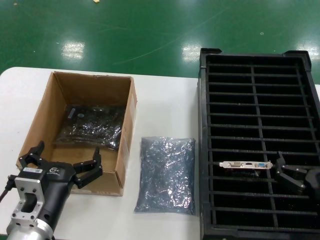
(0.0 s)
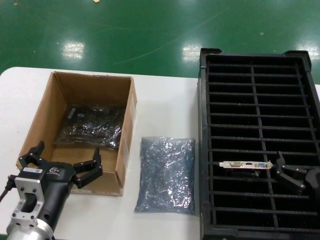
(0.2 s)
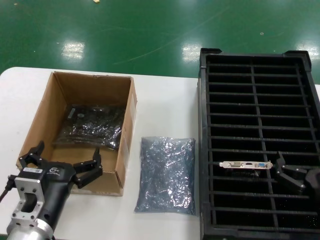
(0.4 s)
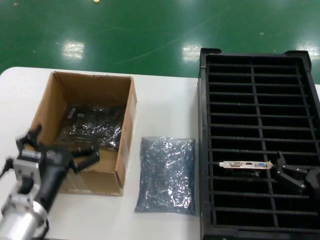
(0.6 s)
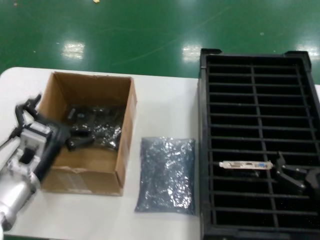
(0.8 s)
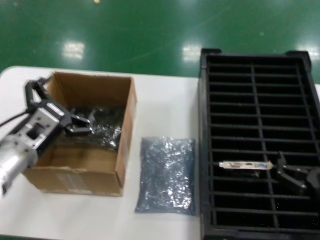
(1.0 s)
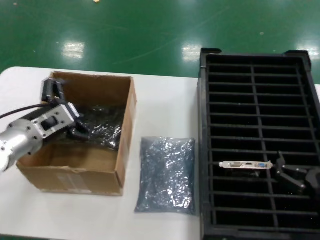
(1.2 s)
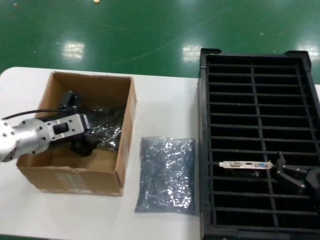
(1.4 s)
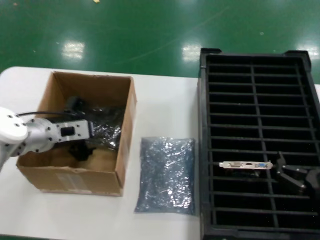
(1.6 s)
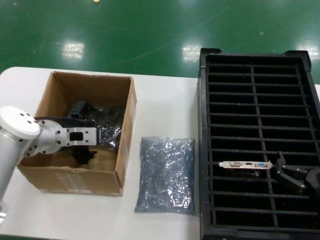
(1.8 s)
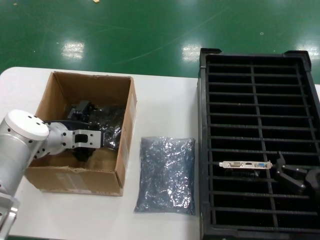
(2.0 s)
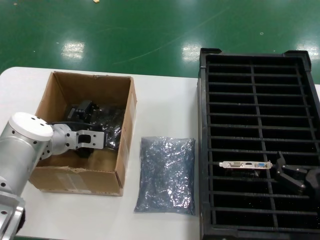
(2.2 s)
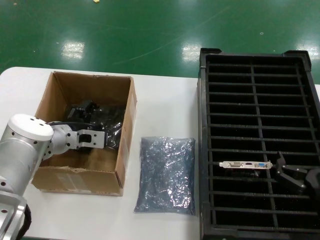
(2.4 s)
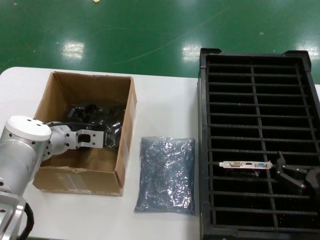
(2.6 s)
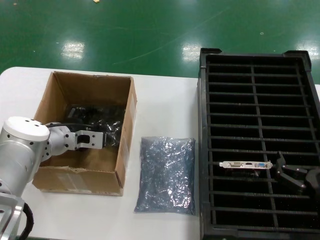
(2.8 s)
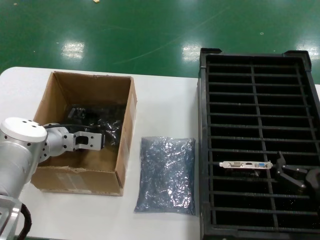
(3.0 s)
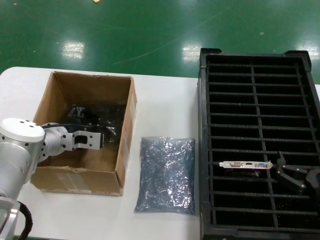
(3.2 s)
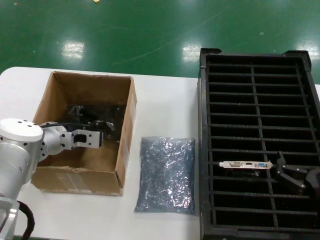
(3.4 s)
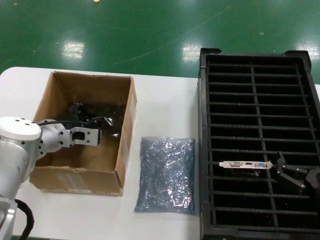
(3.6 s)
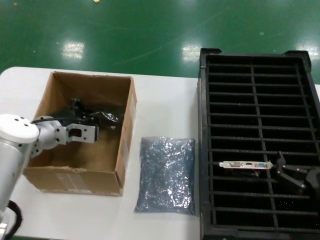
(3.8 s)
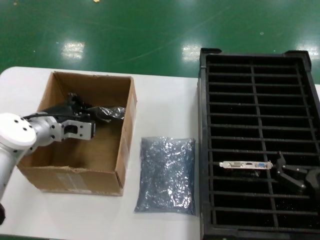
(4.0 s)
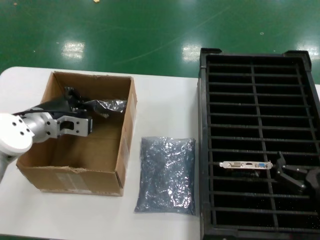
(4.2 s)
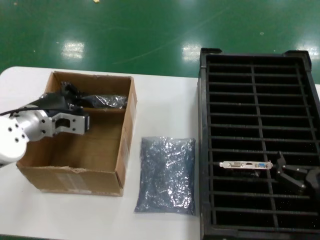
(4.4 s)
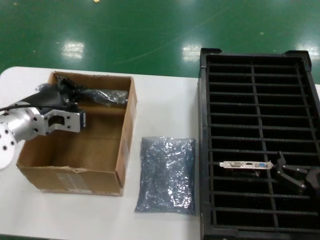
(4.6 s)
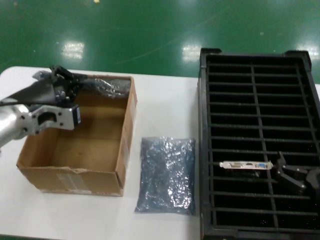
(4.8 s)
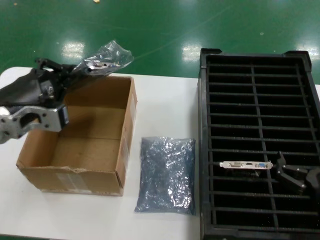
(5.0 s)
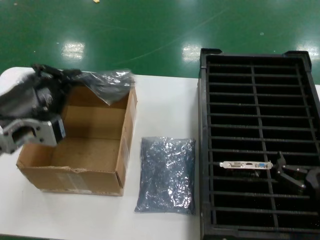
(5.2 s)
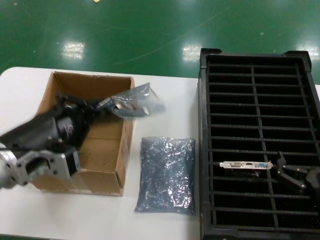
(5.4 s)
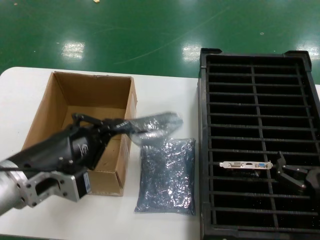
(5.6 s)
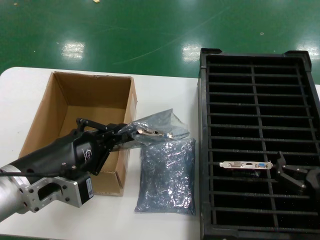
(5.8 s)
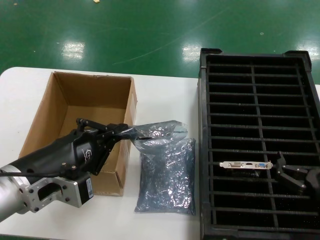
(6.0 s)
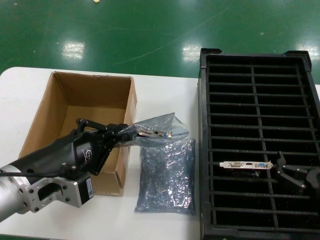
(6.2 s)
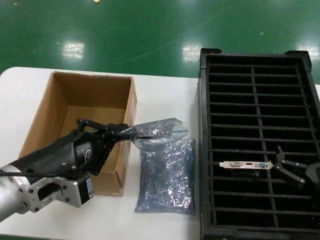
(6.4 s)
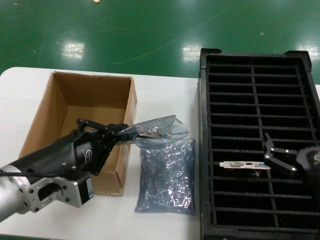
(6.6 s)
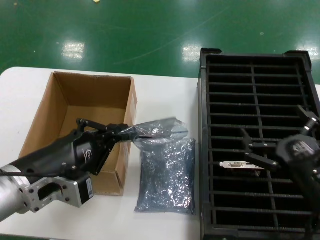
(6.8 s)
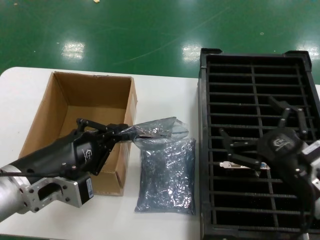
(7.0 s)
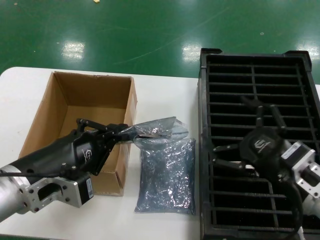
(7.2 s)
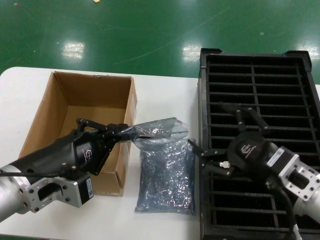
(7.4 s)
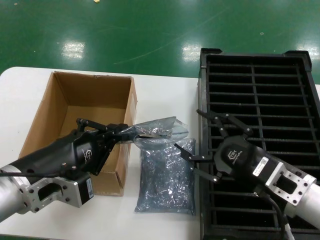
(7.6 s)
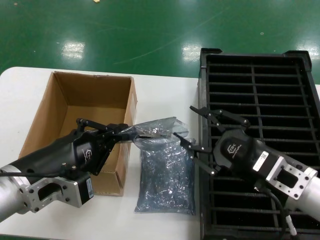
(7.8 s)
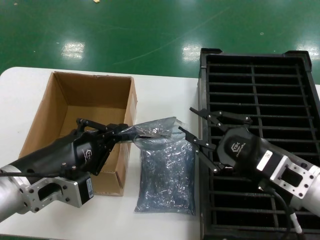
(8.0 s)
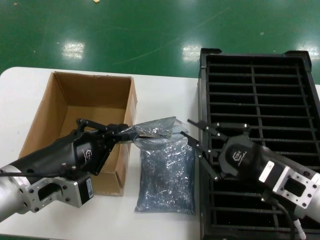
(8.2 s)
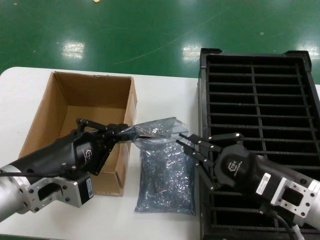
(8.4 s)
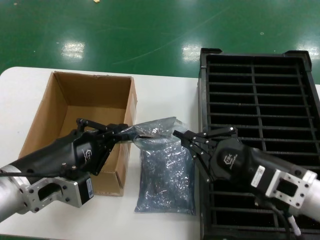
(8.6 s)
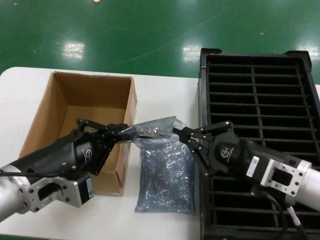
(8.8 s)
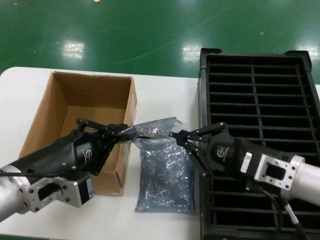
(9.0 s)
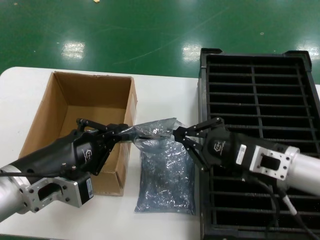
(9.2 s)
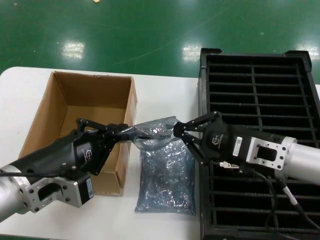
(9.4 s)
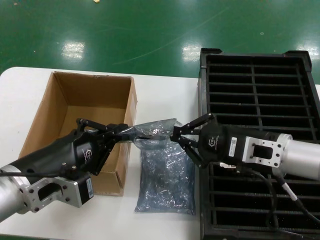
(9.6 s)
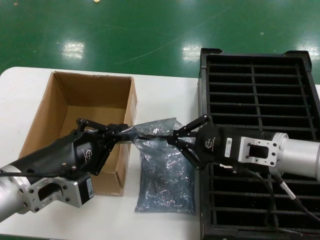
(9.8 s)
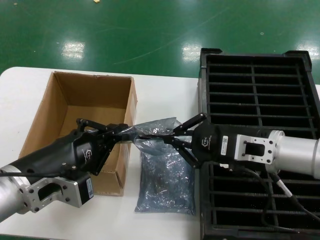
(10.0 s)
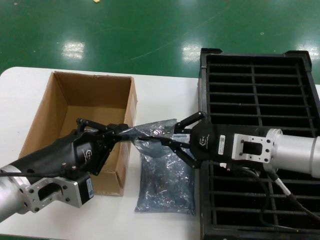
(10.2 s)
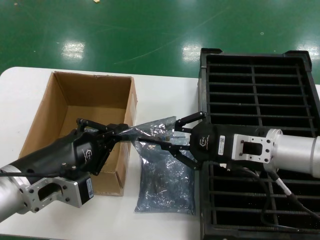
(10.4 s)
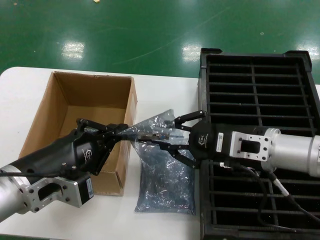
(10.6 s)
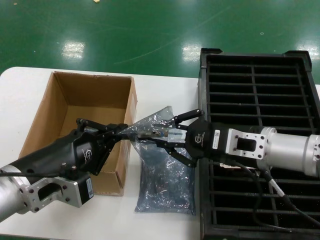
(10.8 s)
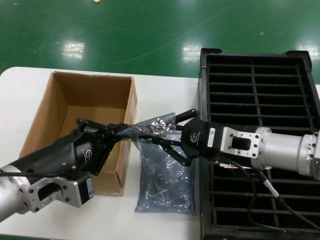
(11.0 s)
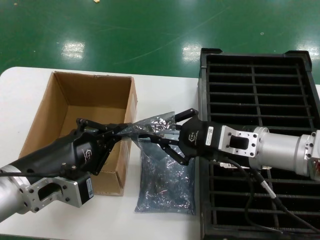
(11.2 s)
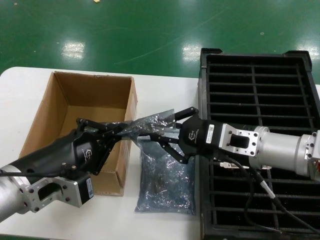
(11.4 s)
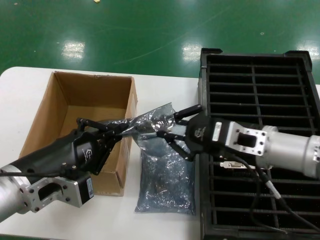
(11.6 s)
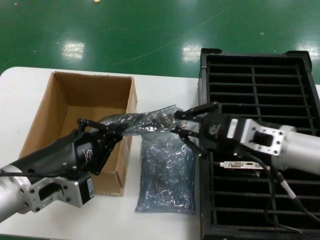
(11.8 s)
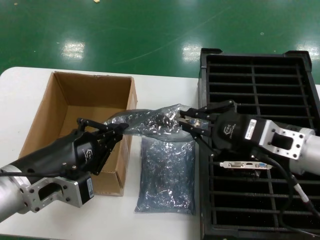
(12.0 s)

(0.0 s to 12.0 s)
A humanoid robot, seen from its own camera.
Task of the whole recording: take out graphics card from box remove packaging put into black container.
Step, 0.0 s - 3.8 s: Grasp the bag.
Step, 4.0 s - 6.0 s: Lift the bag.
0.0 s - 1.6 s: The left hand is displaced forward and upward by approximately 25 cm.
1.6 s - 3.0 s: The hands stay close to where they were, moving slightly.
3.0 s - 4.4 s: The left hand goes some 5 cm upward.
4.4 s - 6.0 s: The left hand shifts approximately 20 cm backward.
6.0 s - 7.6 s: The right hand heads upward and forward, covering about 10 cm.
7.6 s - 9.0 s: The hands move only a little.
9.0 s - 10.4 s: The right hand moves about 5 cm.
10.4 s - 12.0 s: There are only small adjustments of the hands.

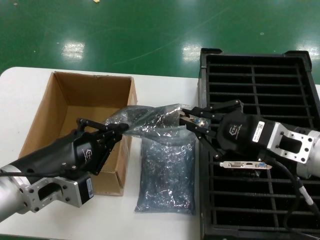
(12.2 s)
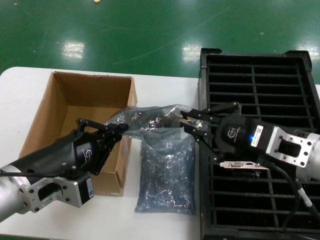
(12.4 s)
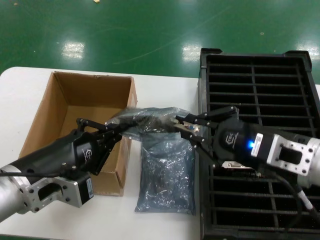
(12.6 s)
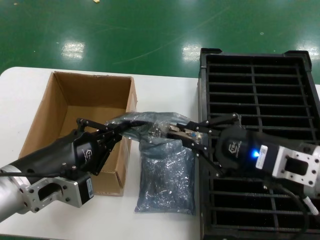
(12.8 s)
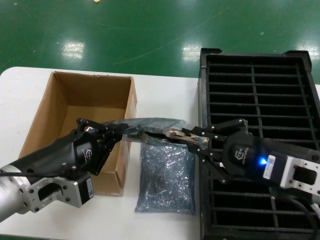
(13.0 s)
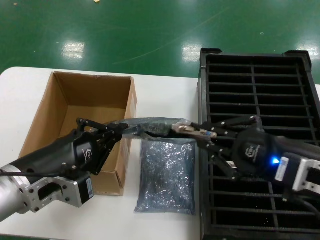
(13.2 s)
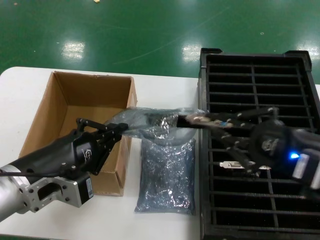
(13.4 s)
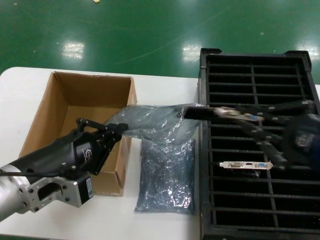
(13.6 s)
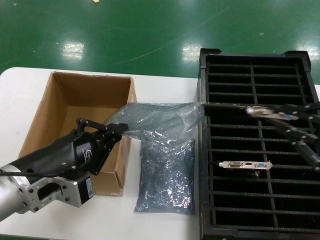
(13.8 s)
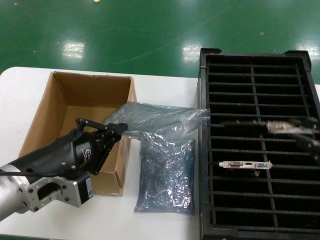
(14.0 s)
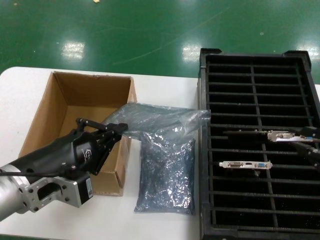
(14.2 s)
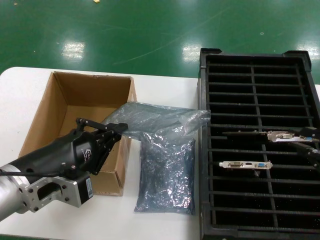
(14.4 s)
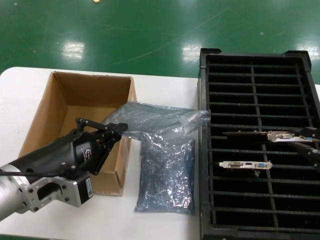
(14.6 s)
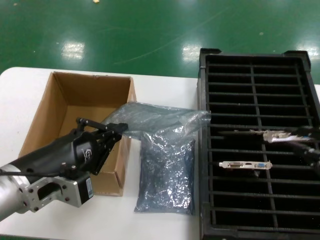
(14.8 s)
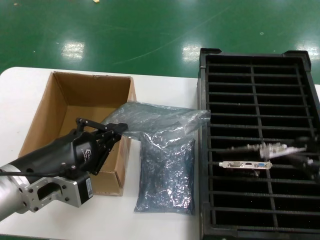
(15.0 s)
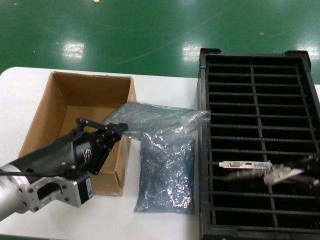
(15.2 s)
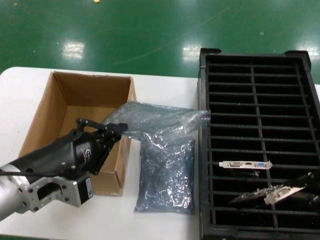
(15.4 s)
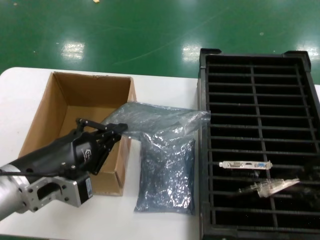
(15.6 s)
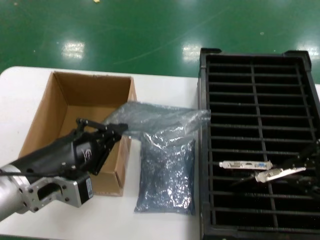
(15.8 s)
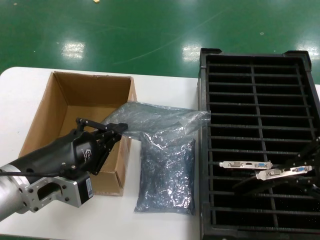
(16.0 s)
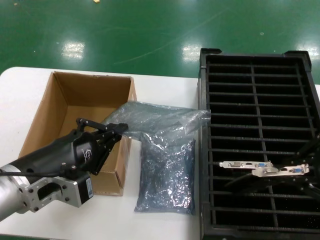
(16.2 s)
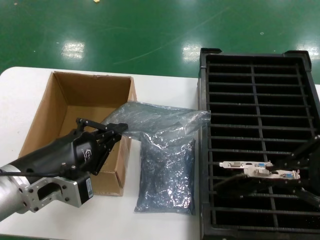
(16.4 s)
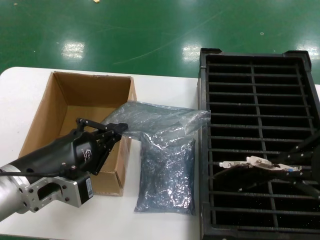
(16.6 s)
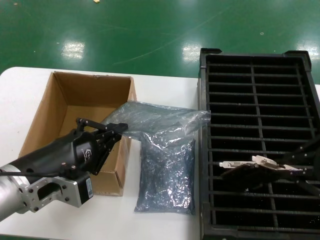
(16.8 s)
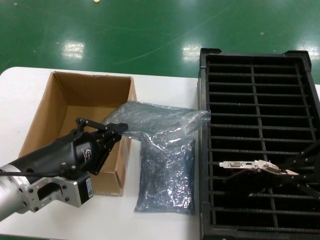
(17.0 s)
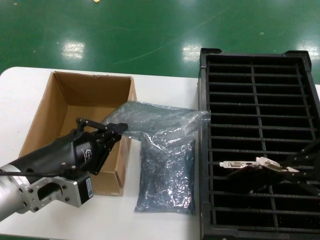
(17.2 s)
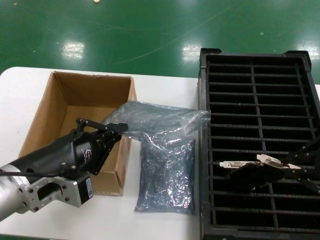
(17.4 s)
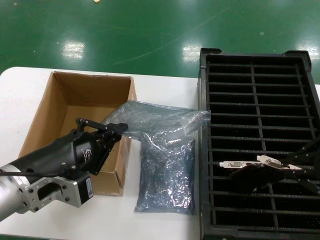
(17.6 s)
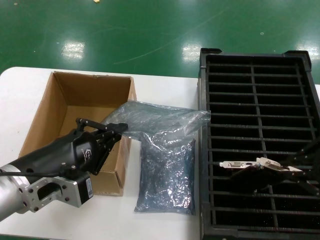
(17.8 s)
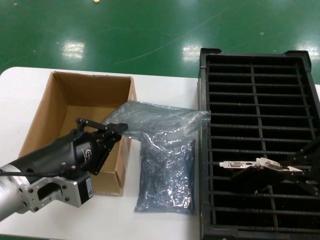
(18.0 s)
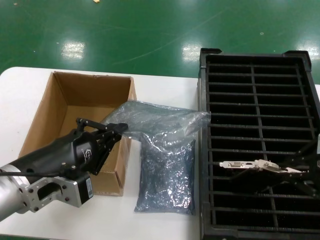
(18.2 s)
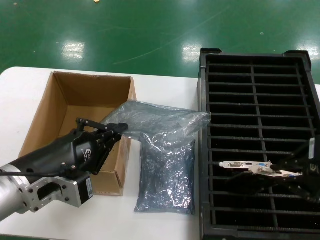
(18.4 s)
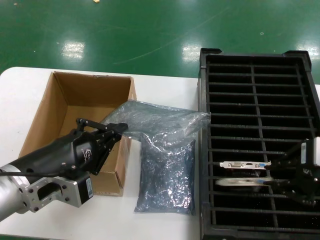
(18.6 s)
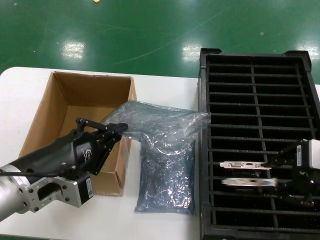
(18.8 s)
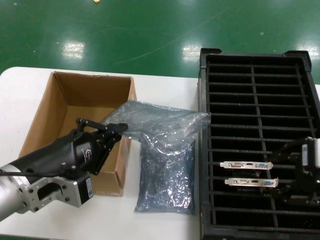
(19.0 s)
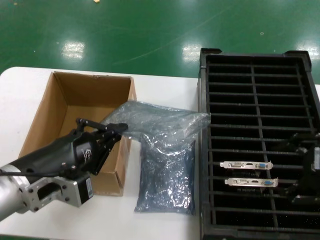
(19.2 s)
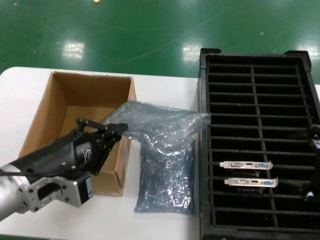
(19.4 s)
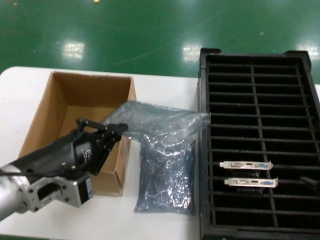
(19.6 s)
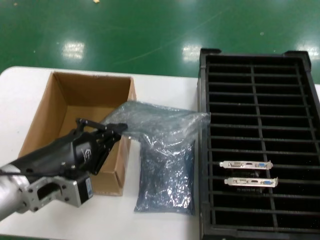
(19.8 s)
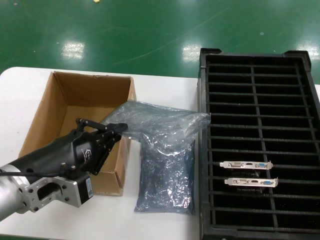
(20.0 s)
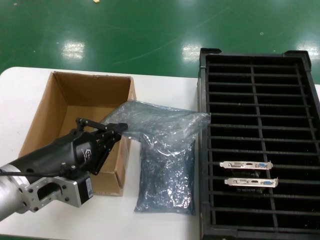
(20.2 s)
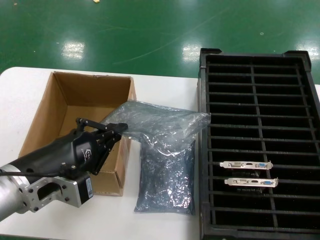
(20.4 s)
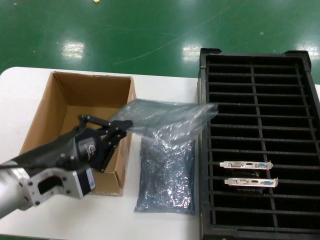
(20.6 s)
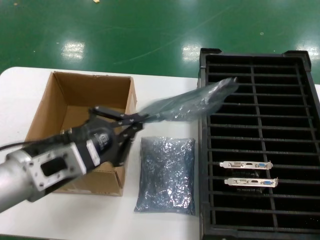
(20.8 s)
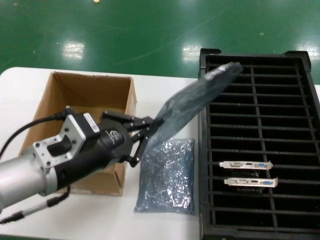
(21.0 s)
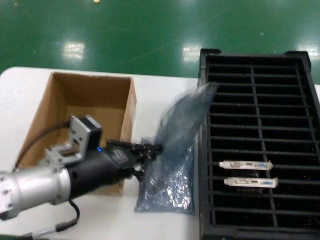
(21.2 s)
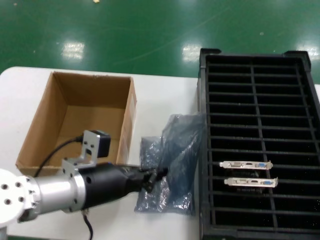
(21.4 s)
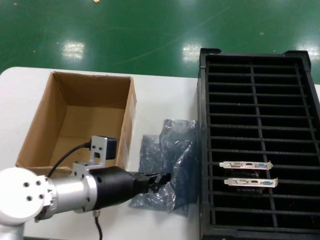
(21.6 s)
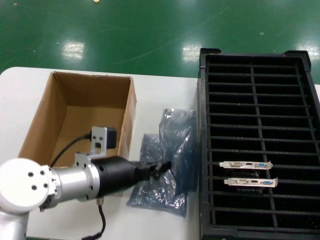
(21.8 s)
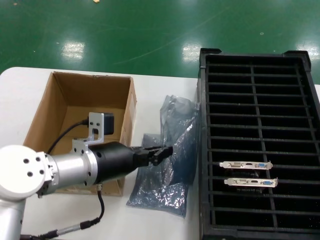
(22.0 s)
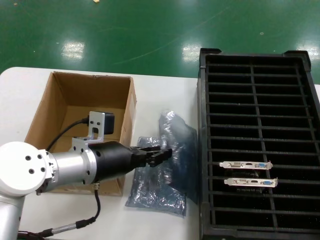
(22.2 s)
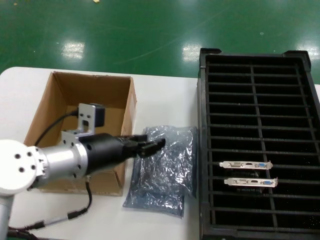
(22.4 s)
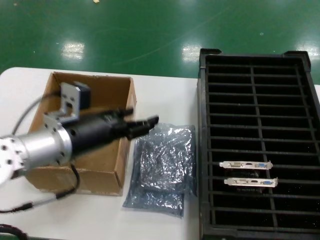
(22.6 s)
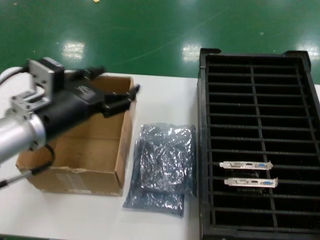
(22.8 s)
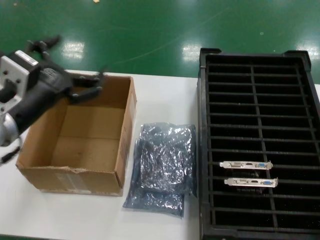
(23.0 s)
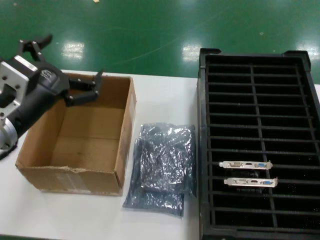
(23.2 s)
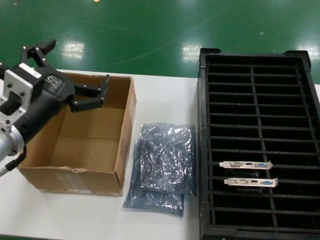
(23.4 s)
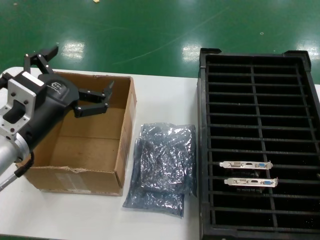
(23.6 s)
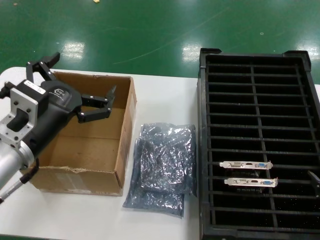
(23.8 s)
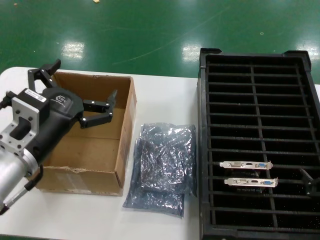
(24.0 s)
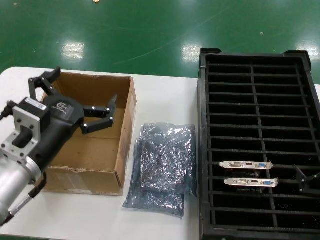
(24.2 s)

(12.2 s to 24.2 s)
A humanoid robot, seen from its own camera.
Task of the whole recording: take out graphics card from box remove packaging put into black container.
Step, 14.0 s - 19.0 s: Place the hard disk in the hard disk enclosure.
Step, 19.2 s - 23.0 s: Place the down the bag.
12.2 s - 13.8 s: The right hand goes about 15 cm backward, to the right and upward.
15.2 s - 16.6 s: The right hand goes some 5 cm forward.
16.6 s - 18.2 s: The hands stay close to where they were, moving slightly.
18.2 s - 19.8 s: The right hand shifts about 10 cm downward and to the right.
21.2 s - 22.6 s: The left hand is displaced forward by some 5 cm.
22.6 s - 24.2 s: The left hand heads backward, covering some 5 cm, while the right hand changes place by about 5 cm.
